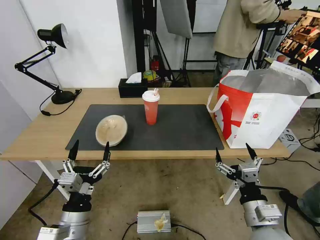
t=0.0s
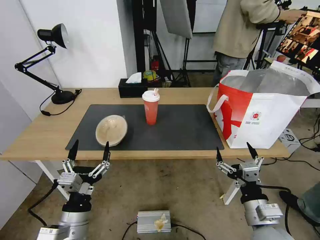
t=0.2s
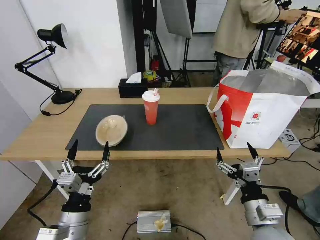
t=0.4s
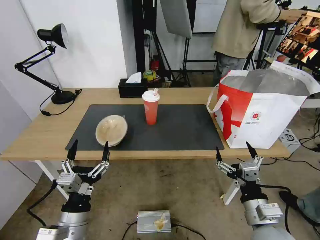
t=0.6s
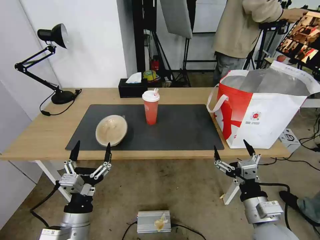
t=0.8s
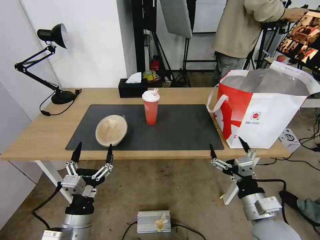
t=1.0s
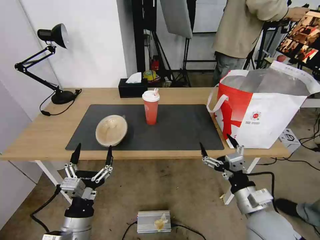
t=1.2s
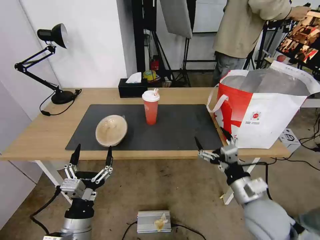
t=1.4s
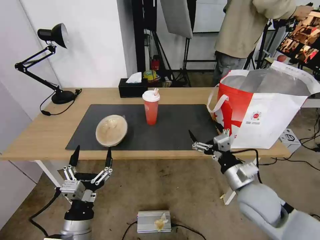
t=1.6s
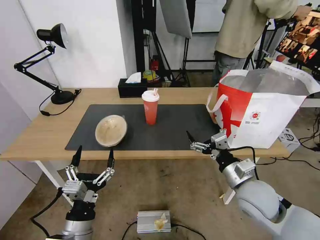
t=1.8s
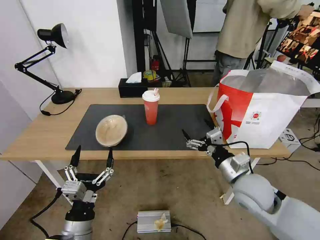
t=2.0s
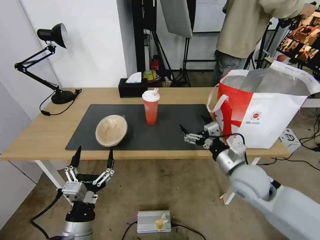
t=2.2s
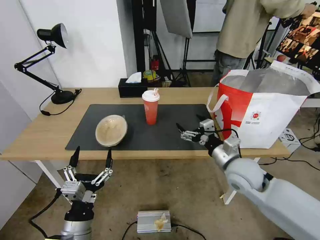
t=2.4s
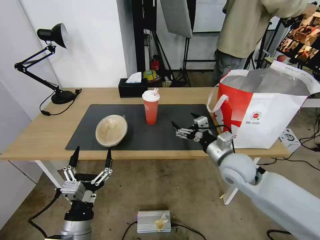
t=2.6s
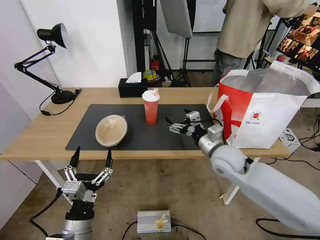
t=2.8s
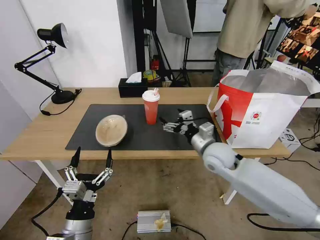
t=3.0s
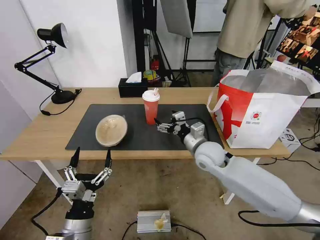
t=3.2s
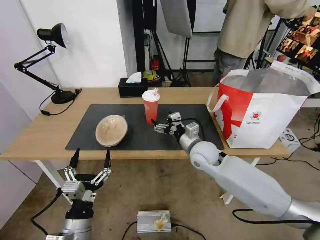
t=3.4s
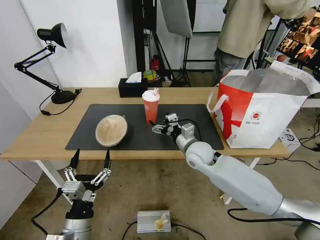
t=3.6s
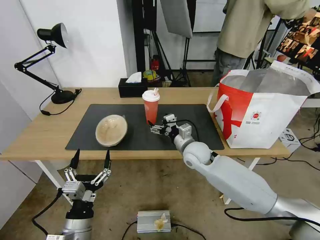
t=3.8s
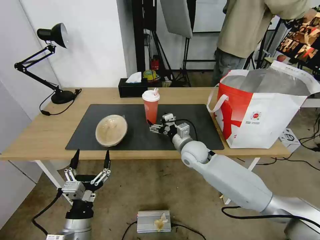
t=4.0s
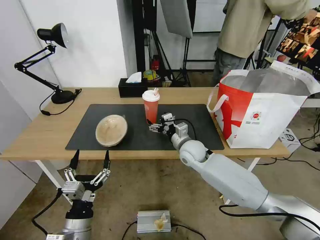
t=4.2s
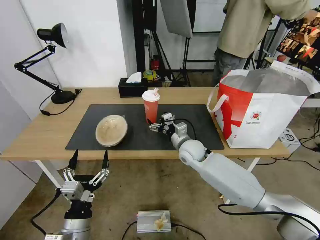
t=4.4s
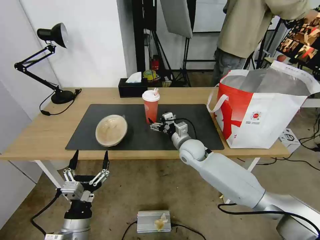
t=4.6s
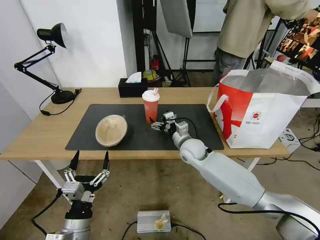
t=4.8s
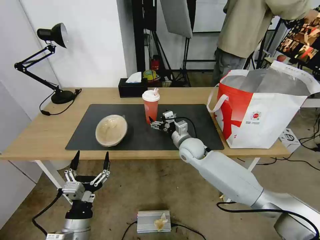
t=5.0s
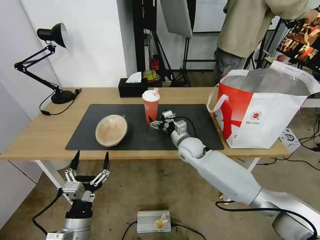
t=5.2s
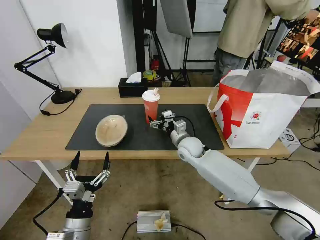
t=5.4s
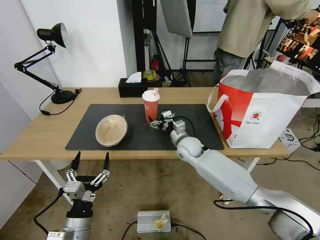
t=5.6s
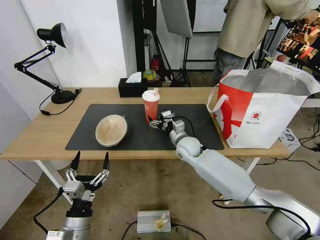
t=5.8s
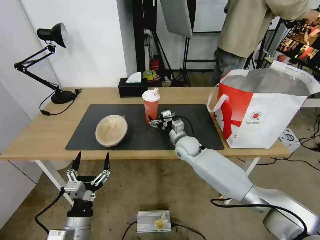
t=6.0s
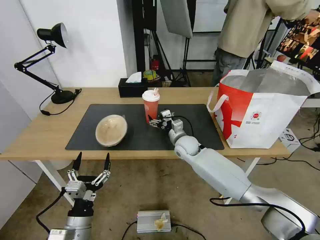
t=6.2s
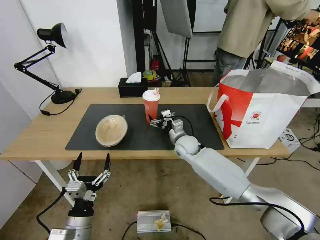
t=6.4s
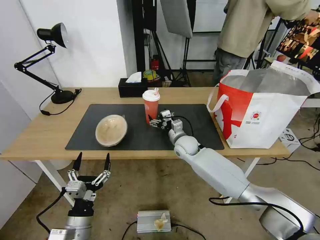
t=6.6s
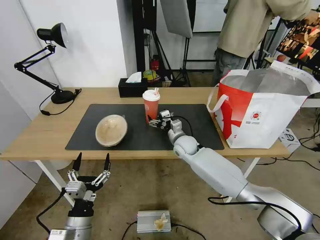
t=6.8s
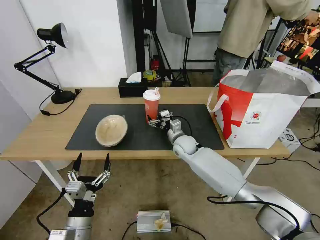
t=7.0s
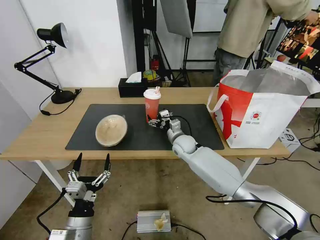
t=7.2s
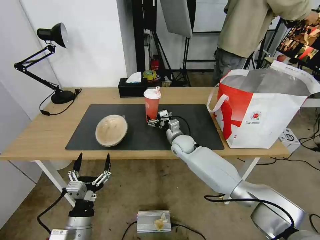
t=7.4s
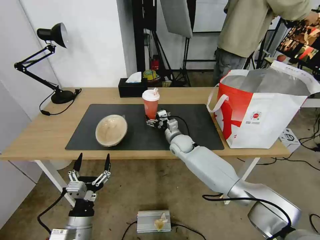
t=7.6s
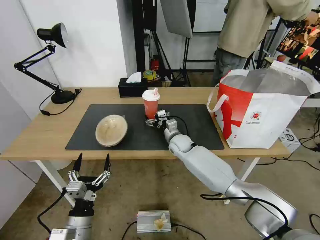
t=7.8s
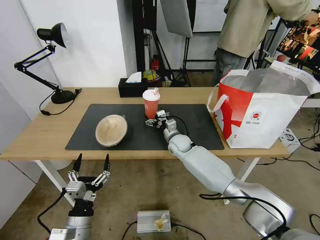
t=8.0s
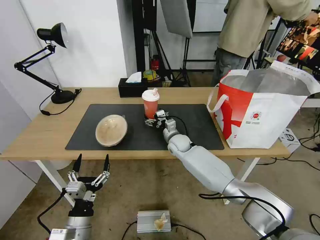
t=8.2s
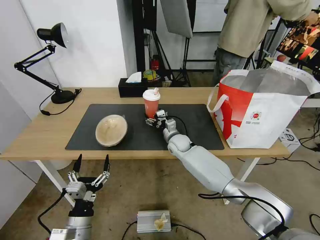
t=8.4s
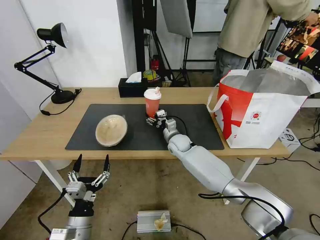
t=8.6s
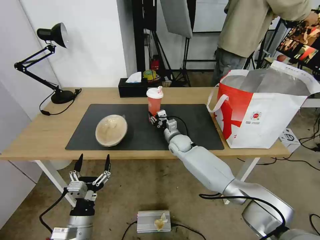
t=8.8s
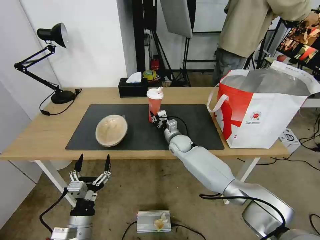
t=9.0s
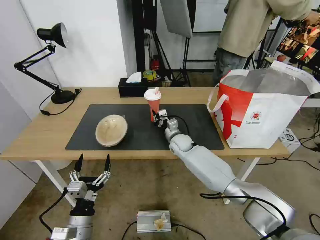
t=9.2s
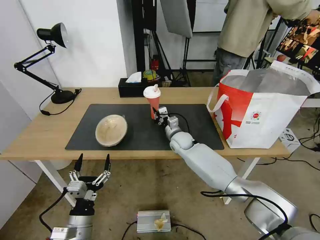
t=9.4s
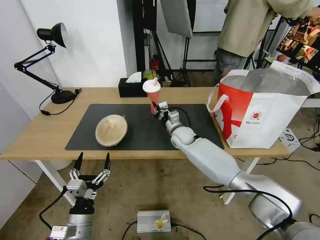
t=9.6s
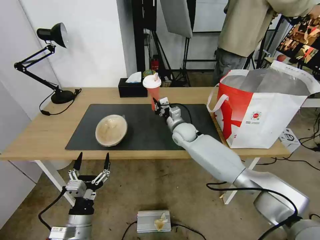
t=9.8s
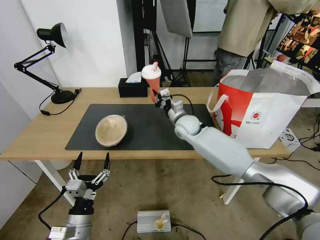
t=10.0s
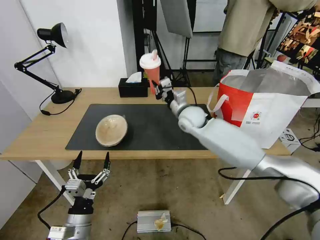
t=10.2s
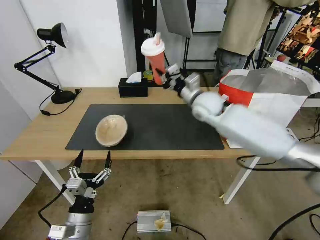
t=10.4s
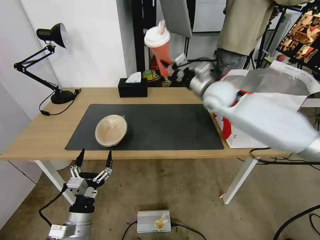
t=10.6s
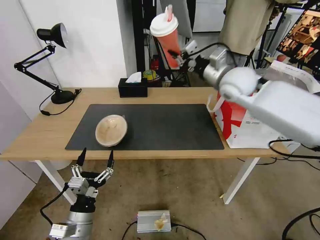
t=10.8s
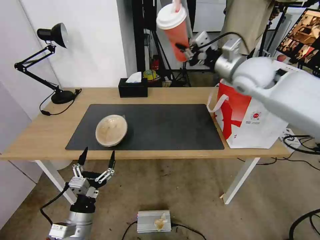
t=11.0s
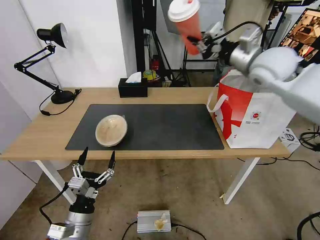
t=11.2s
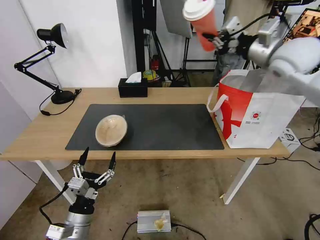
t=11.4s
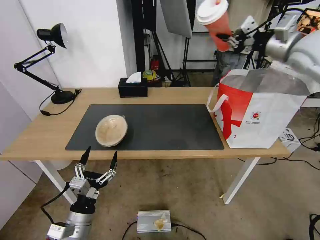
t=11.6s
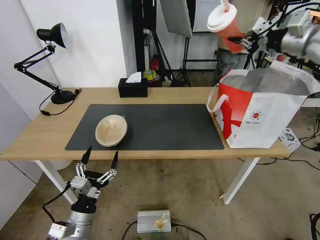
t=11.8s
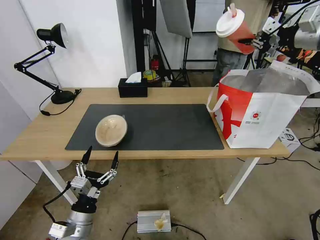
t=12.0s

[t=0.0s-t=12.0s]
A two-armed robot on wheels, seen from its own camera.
Task of the whole recording: Pick up the trash from the table and place it into the takeout bag.
t=0.0s to t=1.6s: The right gripper moves forward, roughly 10 cm.
t=1.6s to t=3.0s: The right gripper moves forward and to the left, about 15 cm.
t=3.0s to t=4.4s: The right gripper travels to the left, forward and downward by about 10 cm.
t=4.4s to t=6.0s: There are only small adjustments of the grippers.
t=6.0s to t=7.6s: The grippers stay close to where they were, moving slightly.
t=7.6s to t=9.0s: The right gripper closes its fingers.
t=9.0s to t=10.4s: The right gripper heads upward, covering roughly 20 cm.
t=10.4s to t=12.0s: The right gripper goes some 40 cm to the right and upward.

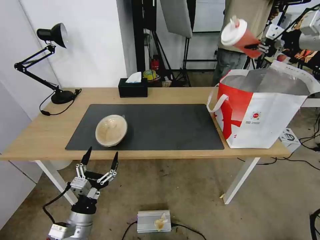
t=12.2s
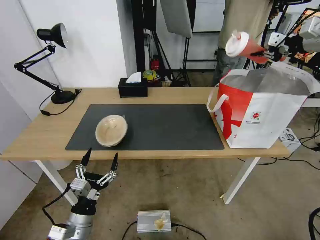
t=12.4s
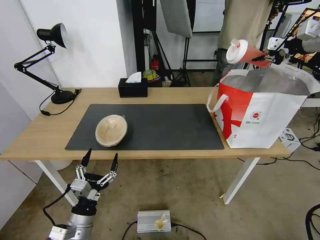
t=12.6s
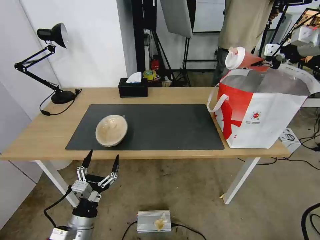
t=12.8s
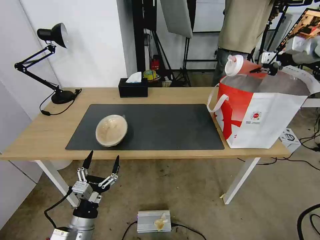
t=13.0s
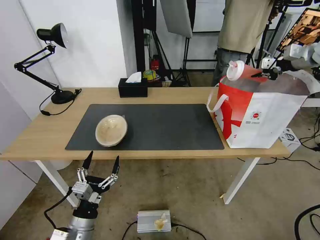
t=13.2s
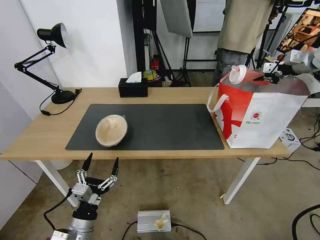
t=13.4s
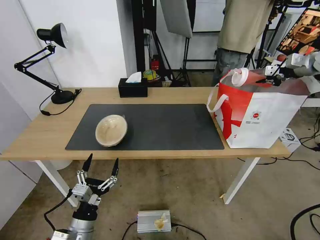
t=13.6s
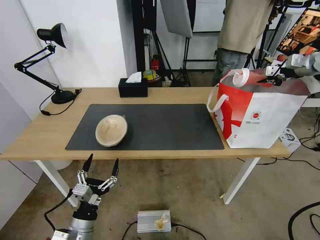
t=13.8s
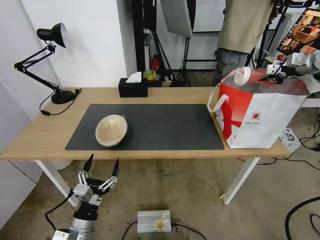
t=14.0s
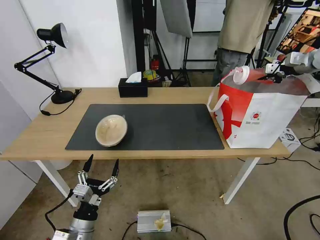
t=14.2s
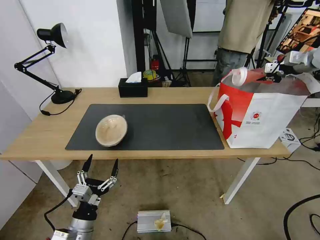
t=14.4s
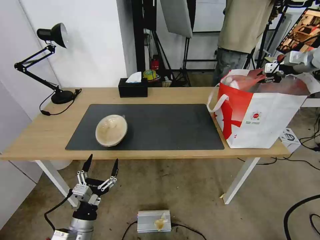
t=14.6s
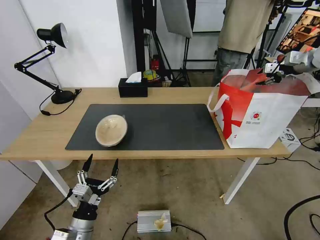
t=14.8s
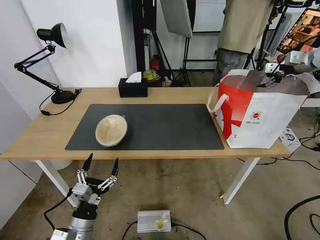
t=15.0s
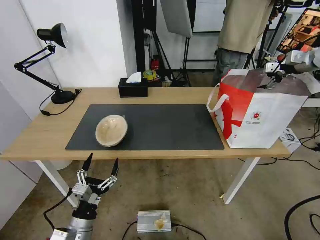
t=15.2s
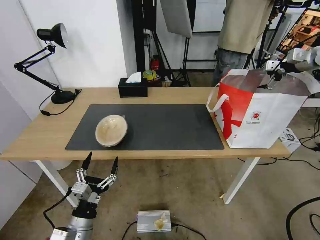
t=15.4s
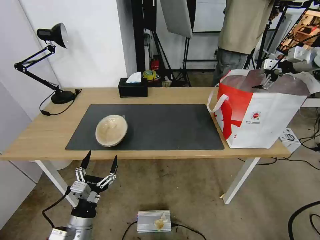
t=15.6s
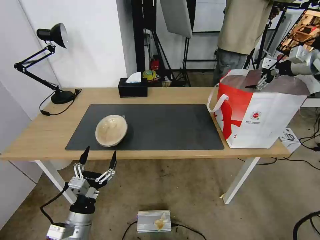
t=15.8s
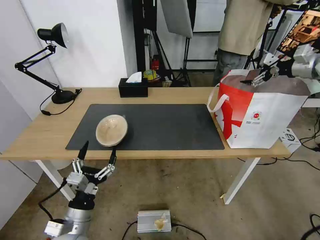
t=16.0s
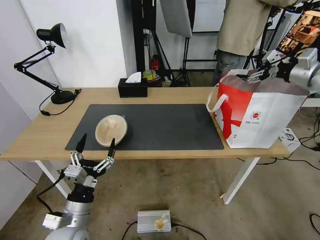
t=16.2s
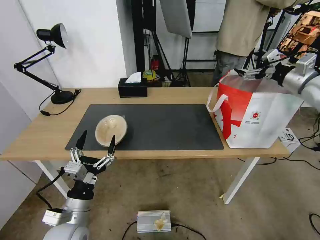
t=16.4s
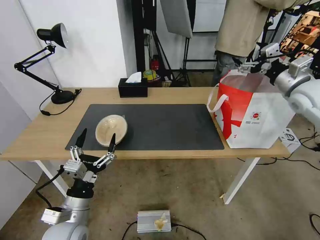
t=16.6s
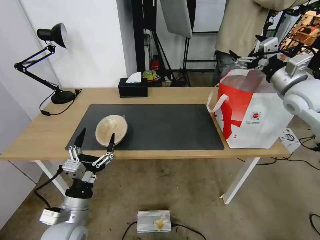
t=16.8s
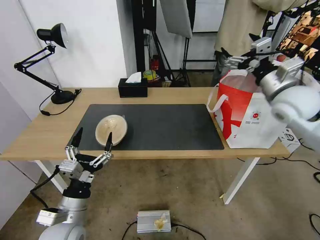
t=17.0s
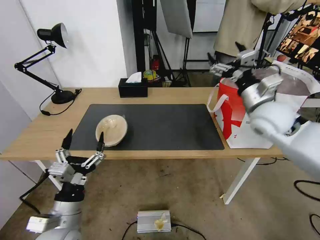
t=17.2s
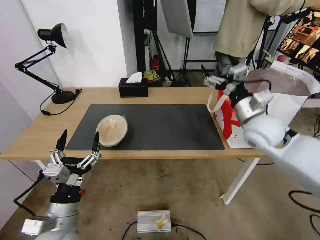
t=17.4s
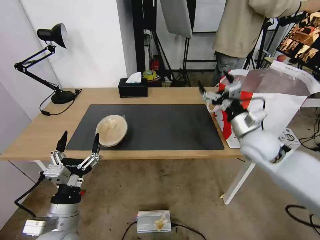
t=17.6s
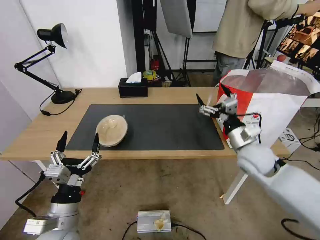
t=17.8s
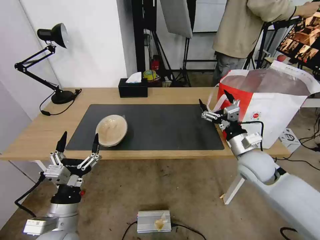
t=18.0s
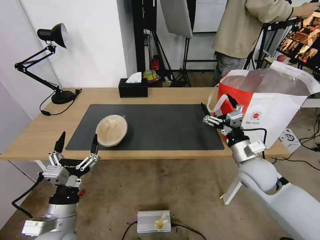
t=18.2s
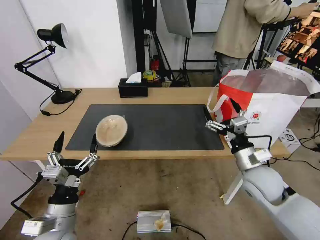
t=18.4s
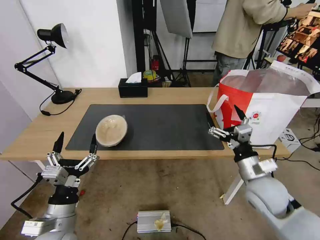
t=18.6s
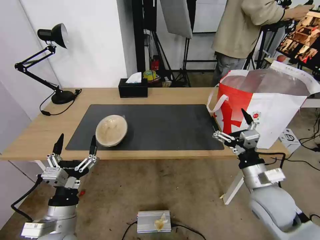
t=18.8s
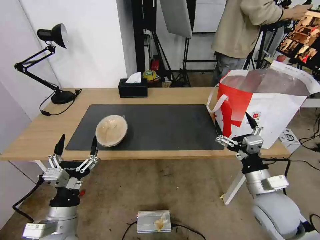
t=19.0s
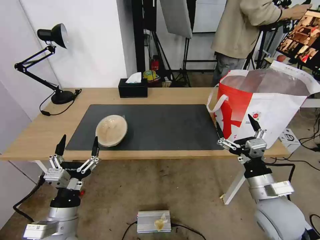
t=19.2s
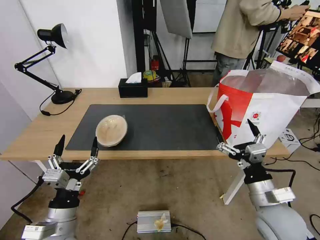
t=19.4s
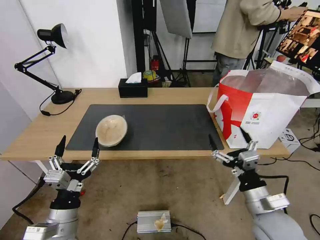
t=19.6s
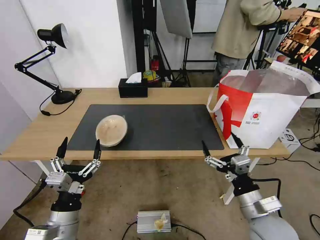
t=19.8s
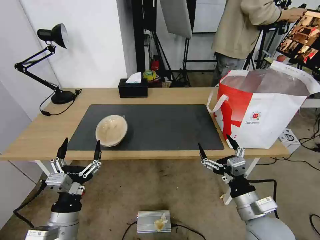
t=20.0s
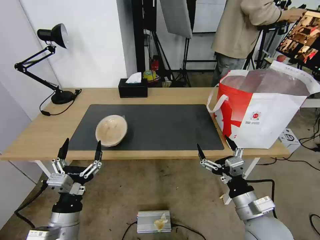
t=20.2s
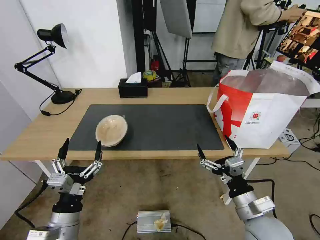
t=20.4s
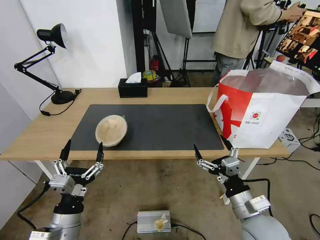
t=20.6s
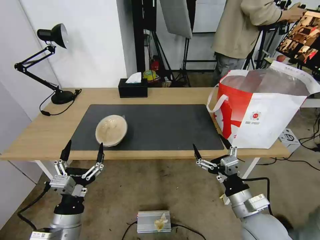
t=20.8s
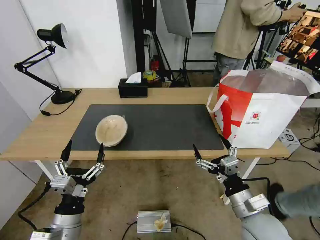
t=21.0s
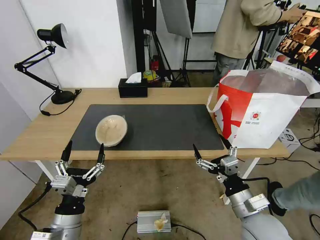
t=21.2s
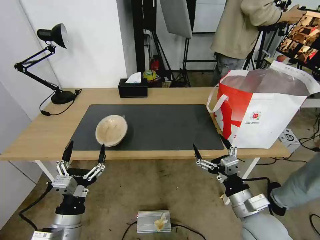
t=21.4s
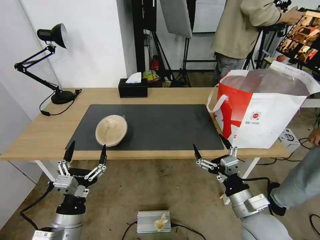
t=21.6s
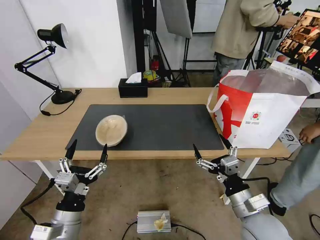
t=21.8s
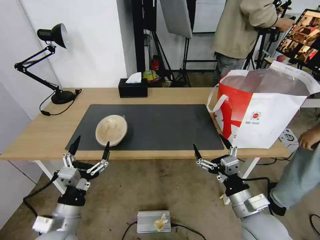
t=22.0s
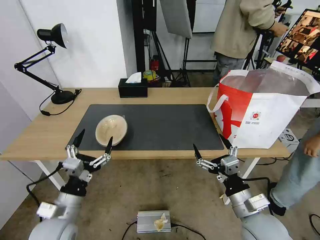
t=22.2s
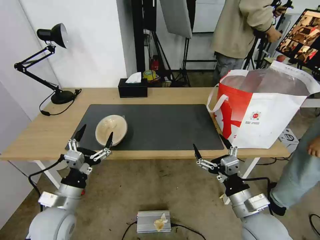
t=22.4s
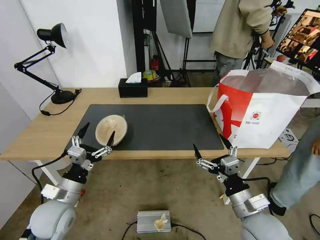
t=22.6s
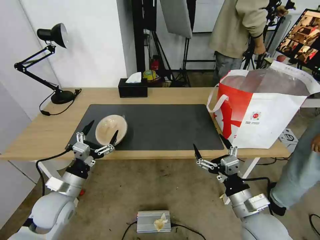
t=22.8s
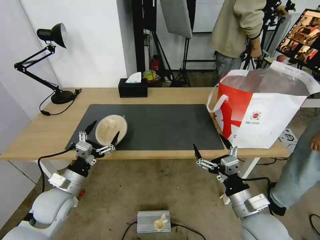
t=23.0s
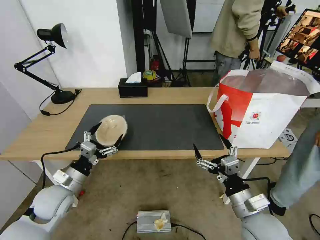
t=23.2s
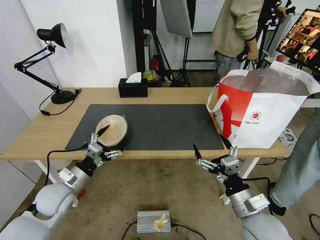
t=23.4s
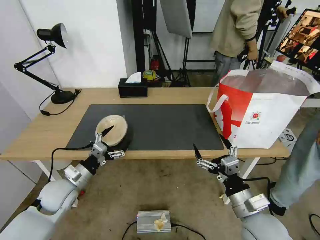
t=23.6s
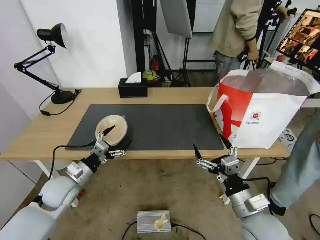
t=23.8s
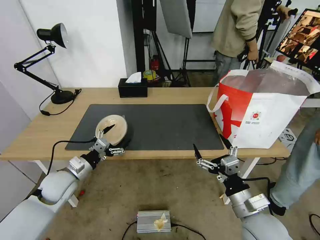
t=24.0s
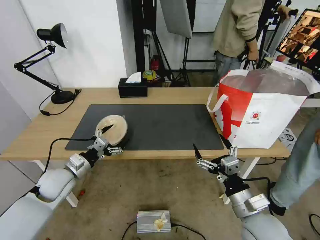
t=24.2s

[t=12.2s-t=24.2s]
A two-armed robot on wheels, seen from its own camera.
Task of the whole recording: Pick up the trash from the table and place it into the takeout bag.
t=12.2s to t=13.8s: The right gripper is displaced downward, to the right and forward by about 10 cm.
t=13.8s to t=15.2s: The right gripper opens its fingers.
t=15.2s to t=16.6s: The right gripper moves backward, to the left and downward, some 20 cm. Meanwhile the left gripper is displaced upward by about 5 cm.
t=16.6s to t=18.2s: The right gripper travels downward, to the left and backward by roughly 25 cm.
t=18.2s to t=19.8s: The right gripper is displaced backward by about 15 cm.
t=19.8s to t=21.2s: There are only small adjustments of the grippers.
t=21.2s to t=22.6s: The left gripper shifts roughly 10 cm forward.
t=22.6s to t=24.2s: The left gripper is displaced forward by roughly 10 cm.
